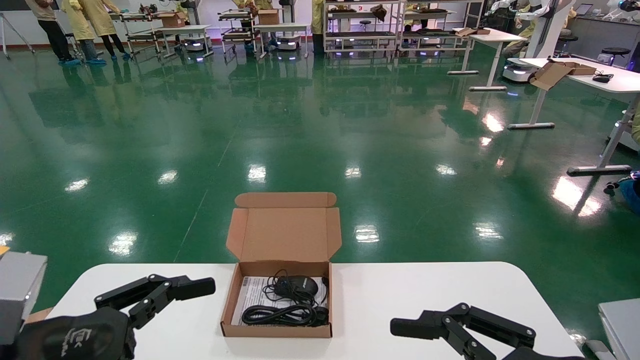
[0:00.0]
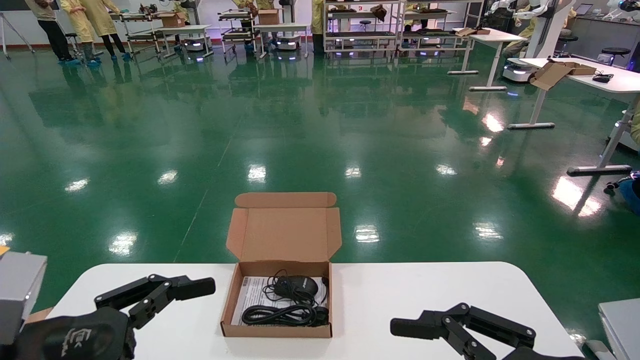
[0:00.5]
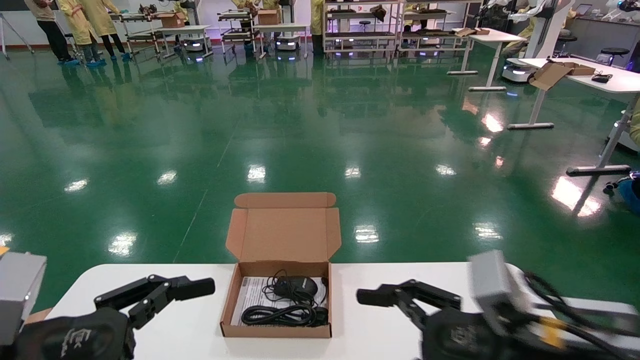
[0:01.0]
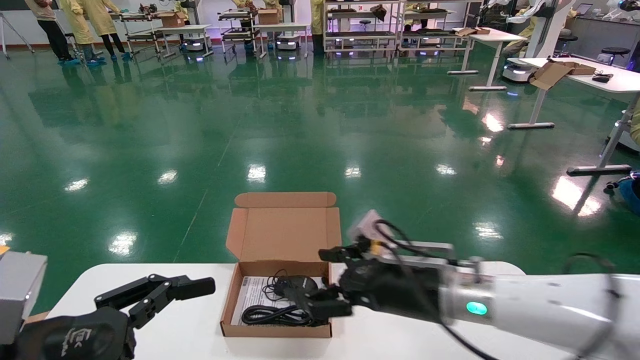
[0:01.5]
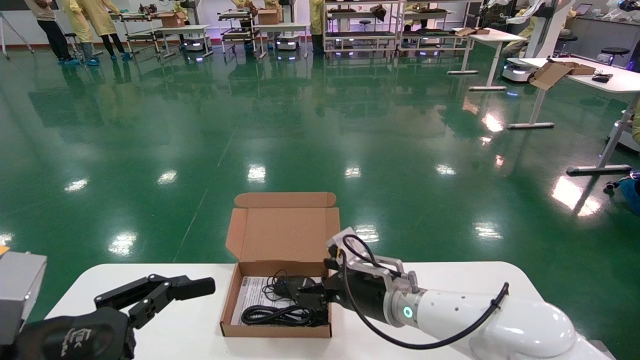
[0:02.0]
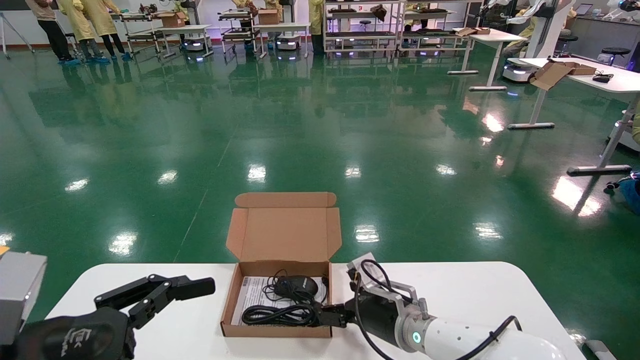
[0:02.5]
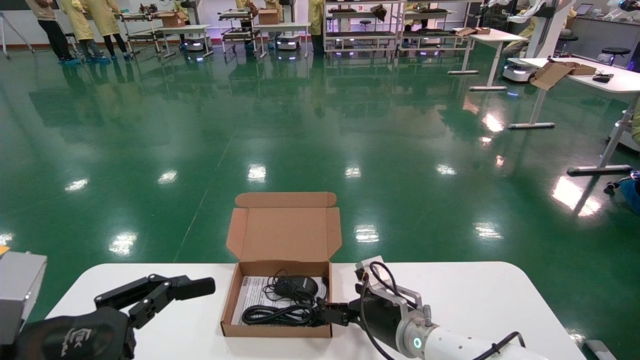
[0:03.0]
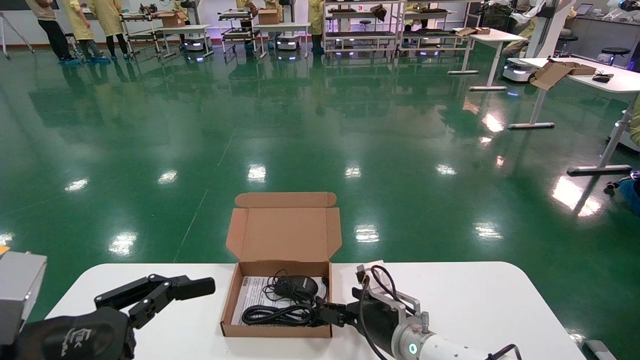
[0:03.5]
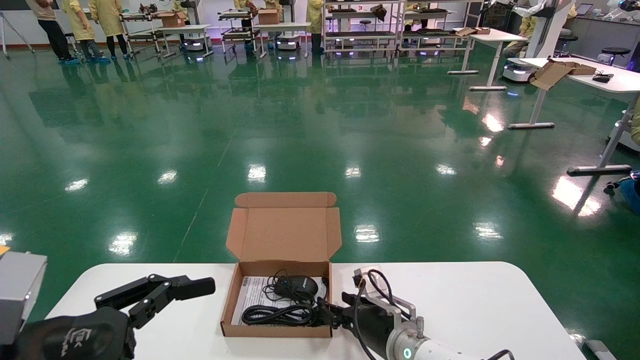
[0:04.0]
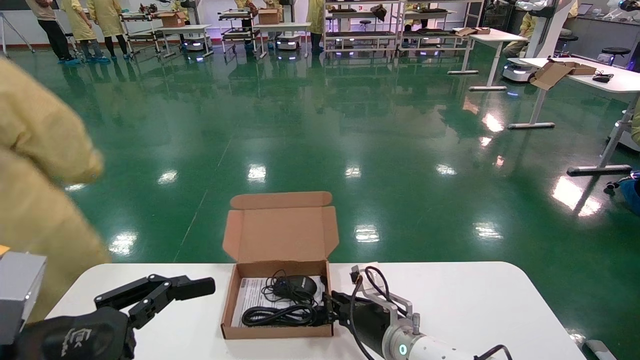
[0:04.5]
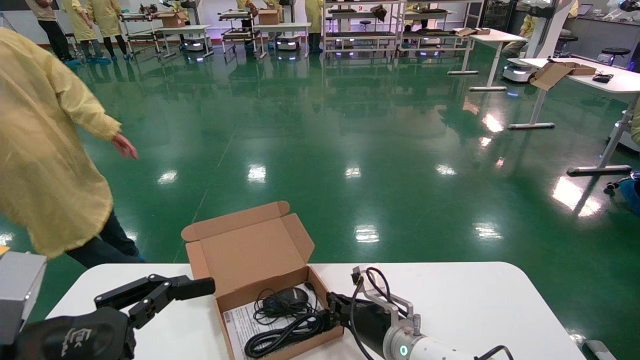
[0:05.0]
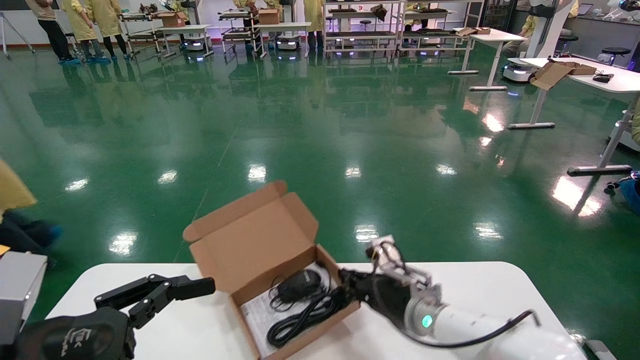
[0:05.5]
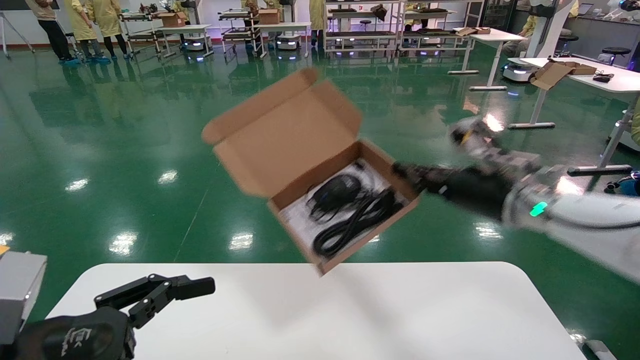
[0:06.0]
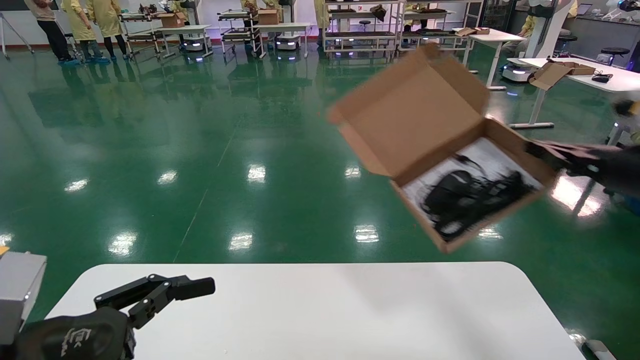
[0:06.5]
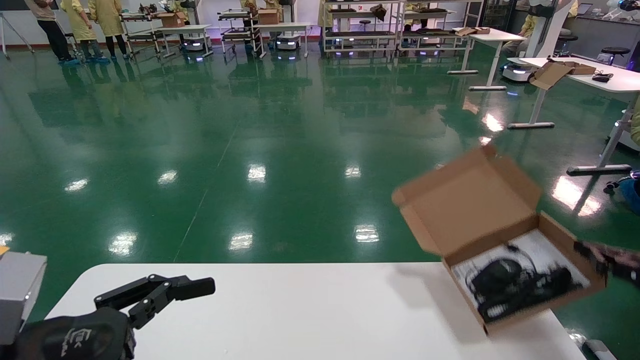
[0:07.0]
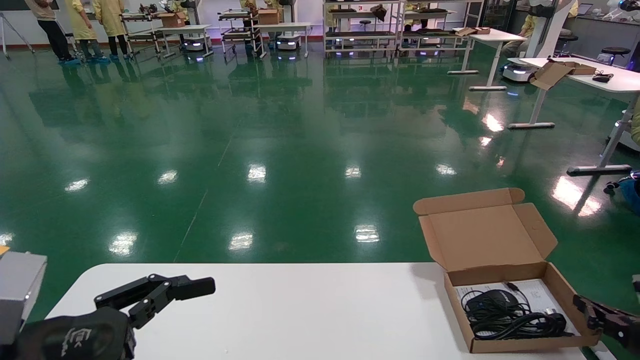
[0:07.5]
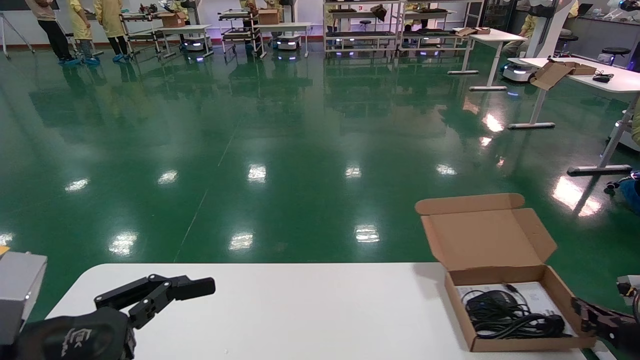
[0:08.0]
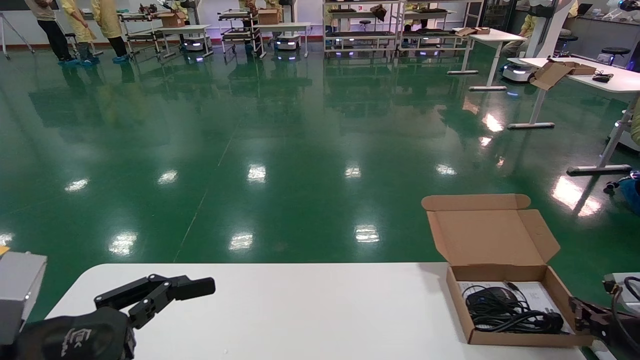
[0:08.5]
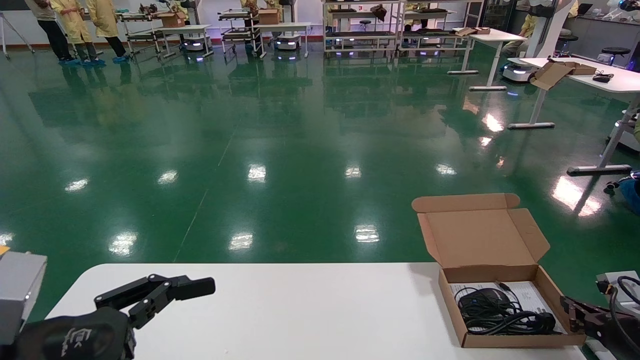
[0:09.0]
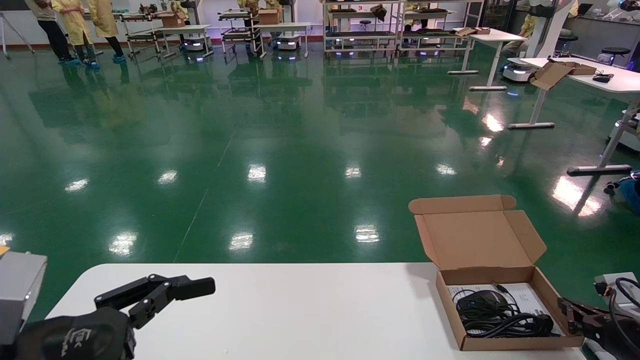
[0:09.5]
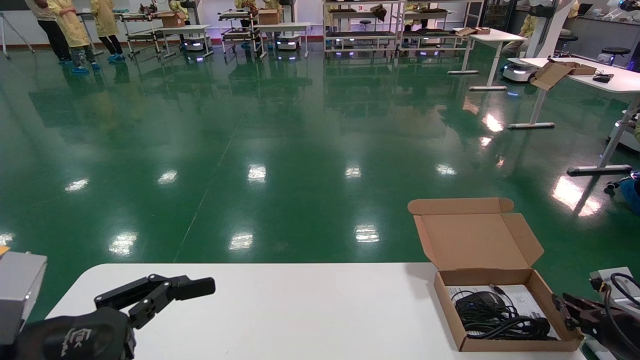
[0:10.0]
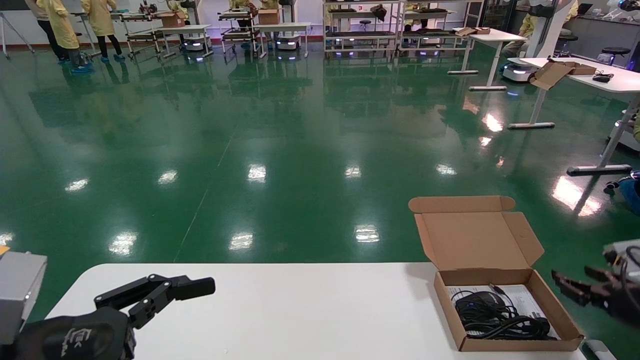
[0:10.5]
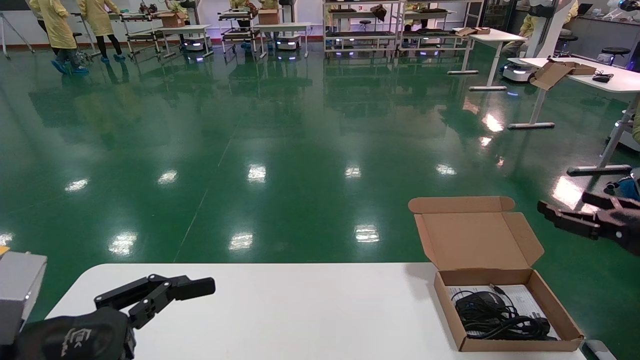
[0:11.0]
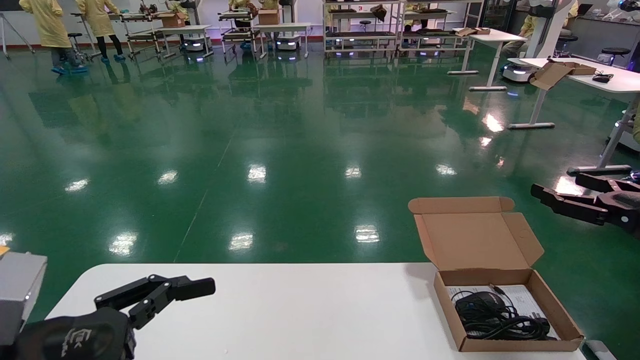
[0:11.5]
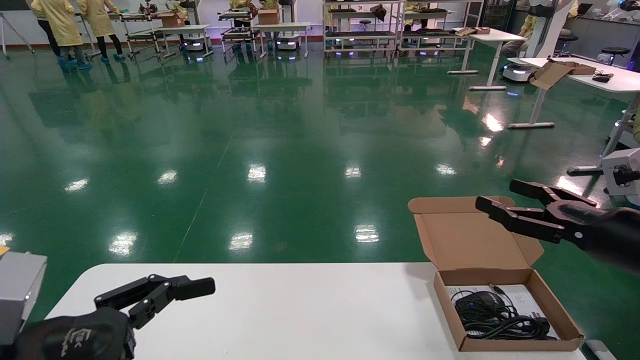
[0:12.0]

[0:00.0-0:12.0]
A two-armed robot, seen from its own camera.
Task of the whole recording: move the position of the storage box with accessories on the table.
Step, 0:01.5 to 0:04.5: Grab and pick up the open mouse box from the accessory packaging area.
Step, 0:05.0 to 0:10.5: Place the open mouse box onto the operation table.
0:00.0 to 0:02.0: The right gripper goes roughly 30 cm forward and to the left.
0:02.0 to 0:04.0: The right gripper travels downward by some 10 cm, and closes its fingers.
0:04.0 to 0:06.0: The right gripper is displaced upward and to the right by roughly 25 cm, and closes.
0:06.0 to 0:08.0: The right gripper heads to the right and downward, covering approximately 30 cm.
0:08.0 to 0:10.0: The grippers move only a little.
0:10.0 to 0:12.0: The right gripper goes roughly 20 cm upward, to the left and backward, and opens up.

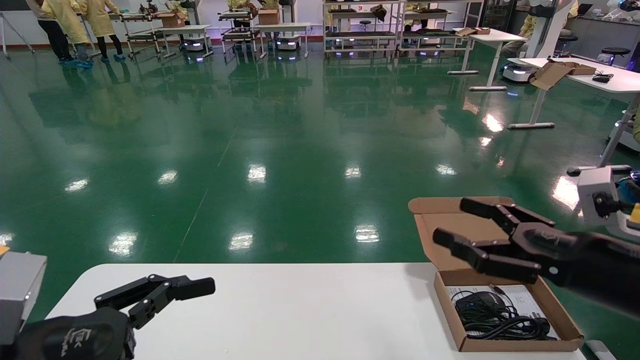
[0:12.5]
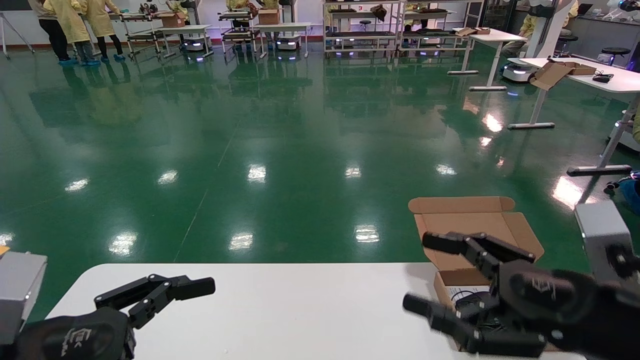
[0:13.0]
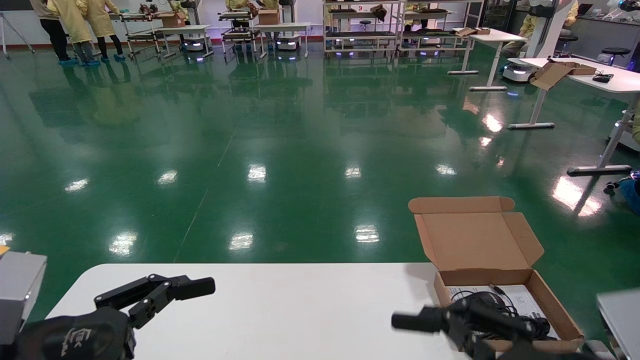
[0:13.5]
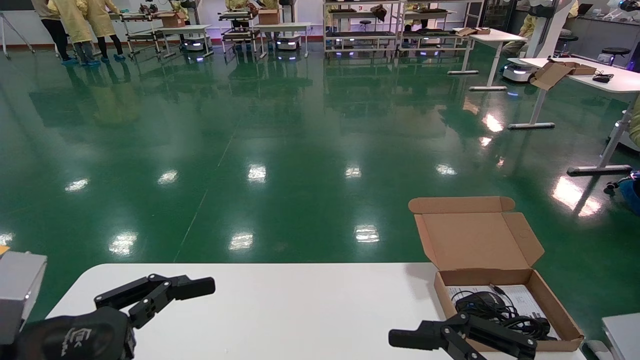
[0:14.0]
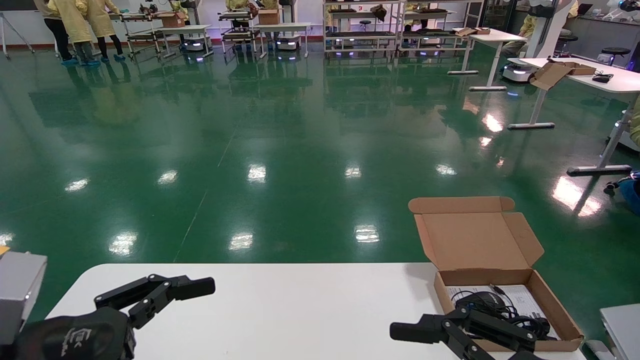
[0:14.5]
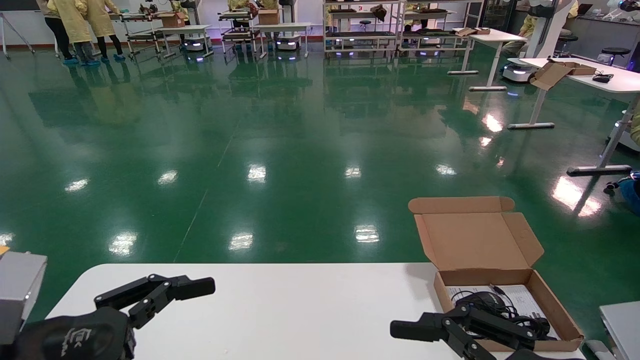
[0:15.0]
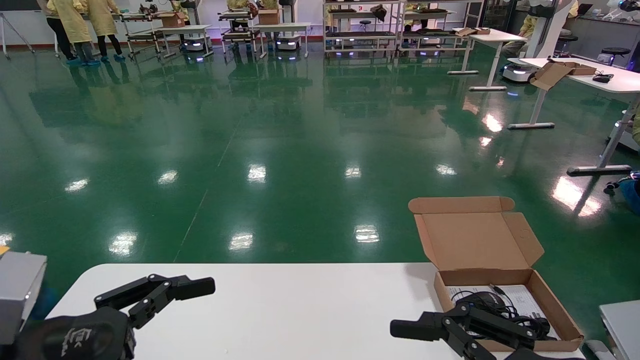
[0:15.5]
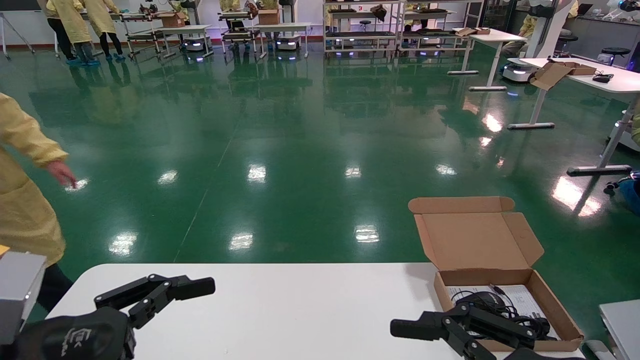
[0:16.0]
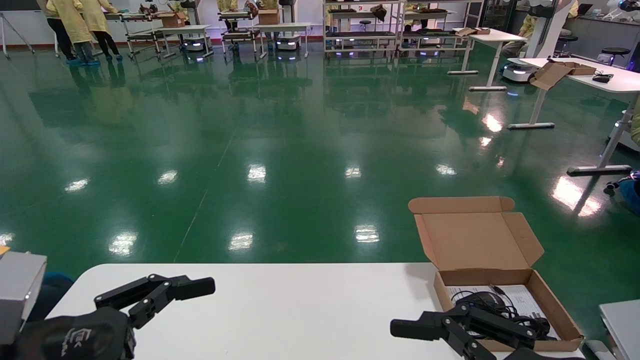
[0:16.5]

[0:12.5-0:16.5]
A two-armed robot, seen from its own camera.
Task of the whole recording: move the position of the storage box with accessories on the table.
0:12.5 to 0:14.5: The right gripper shifts some 15 cm backward and to the left.
0:14.5 to 0:16.5: The two grippers keep their place.
